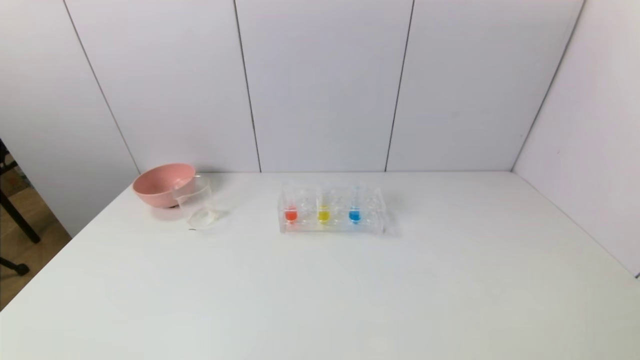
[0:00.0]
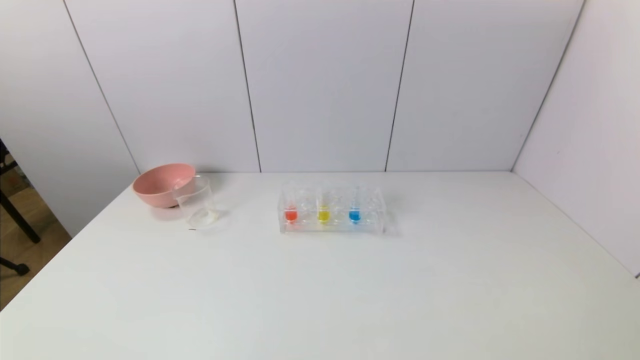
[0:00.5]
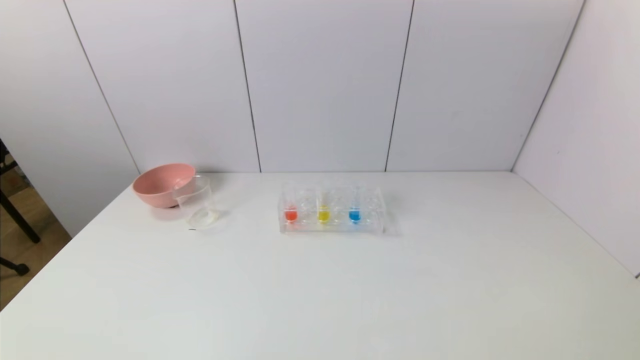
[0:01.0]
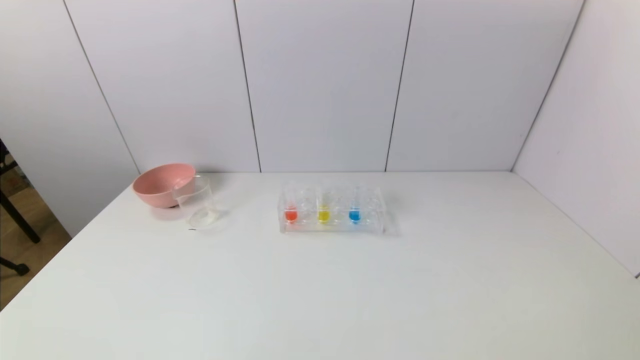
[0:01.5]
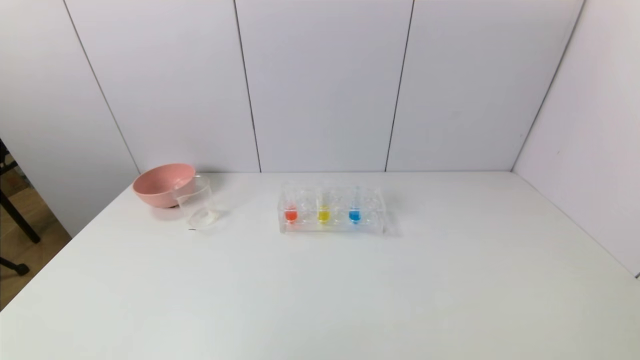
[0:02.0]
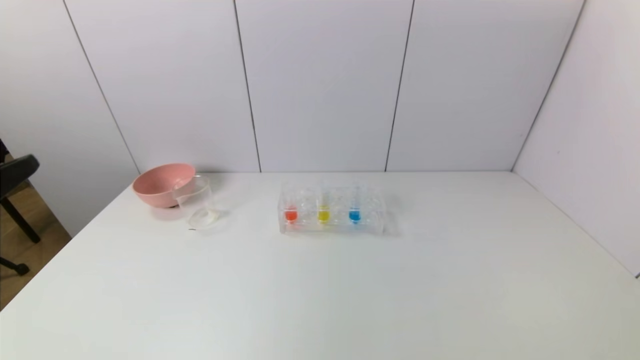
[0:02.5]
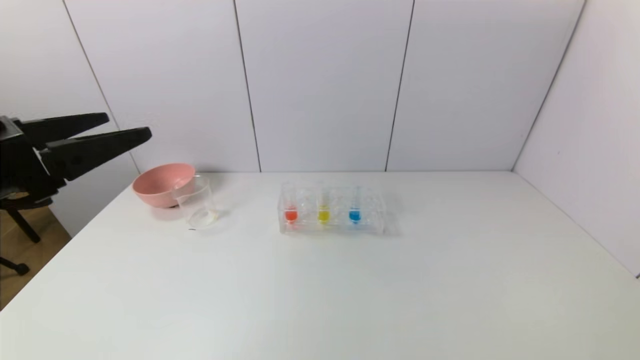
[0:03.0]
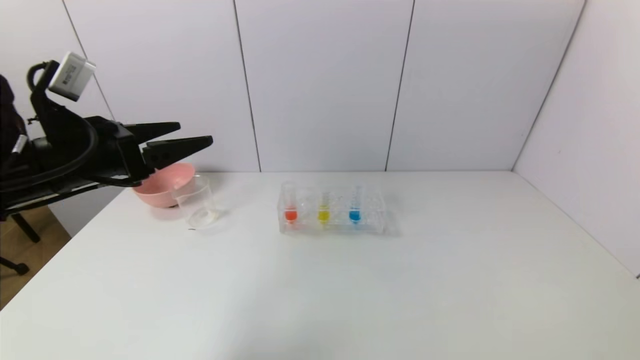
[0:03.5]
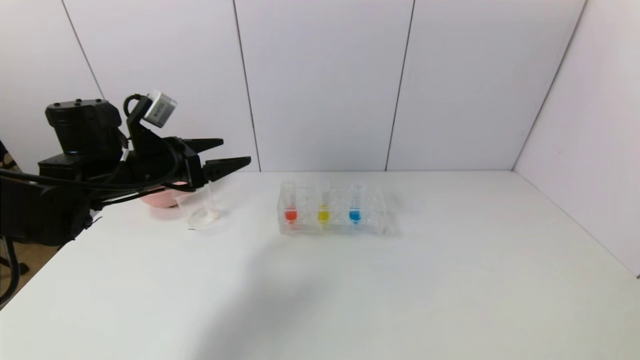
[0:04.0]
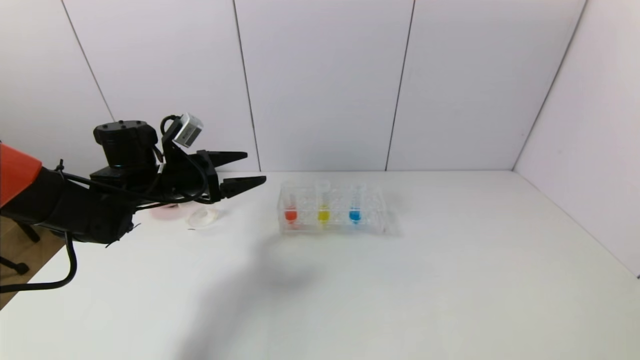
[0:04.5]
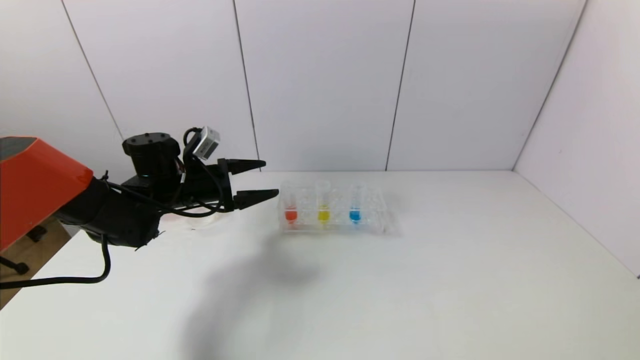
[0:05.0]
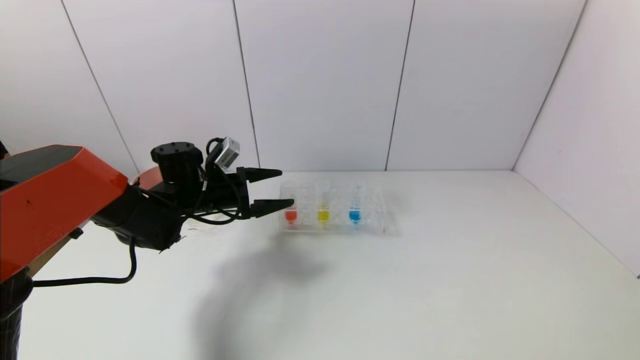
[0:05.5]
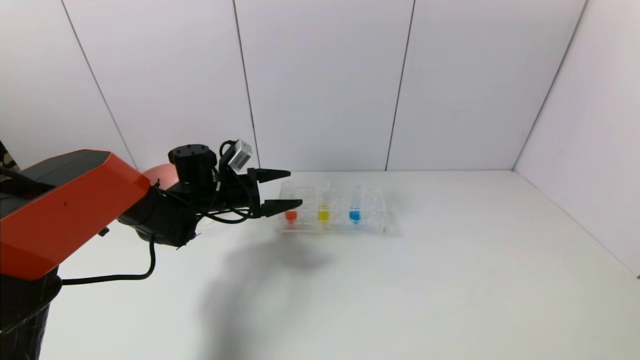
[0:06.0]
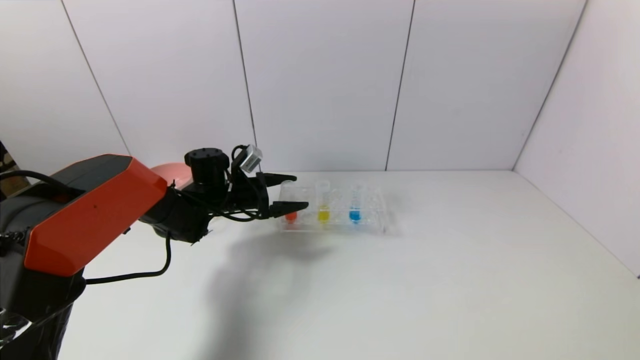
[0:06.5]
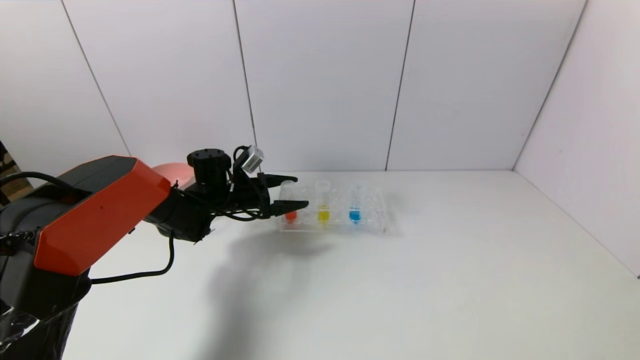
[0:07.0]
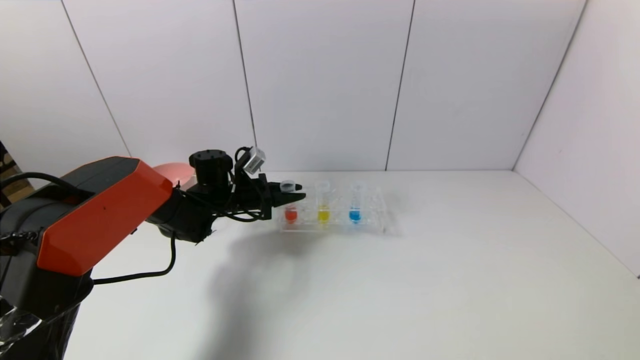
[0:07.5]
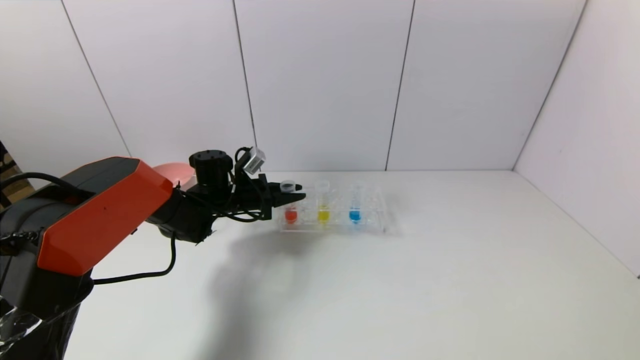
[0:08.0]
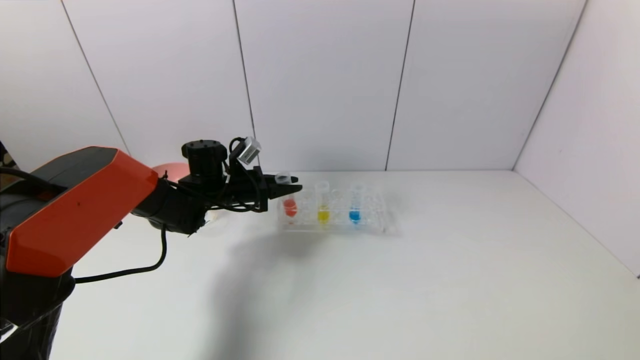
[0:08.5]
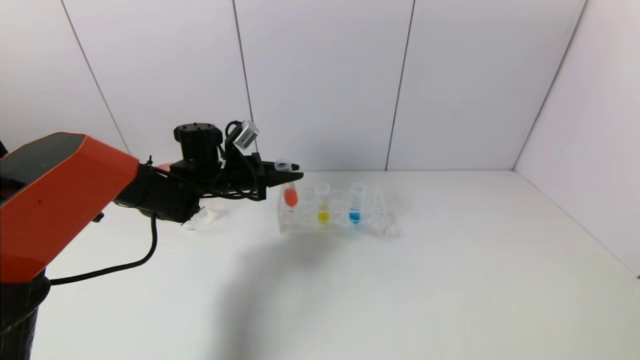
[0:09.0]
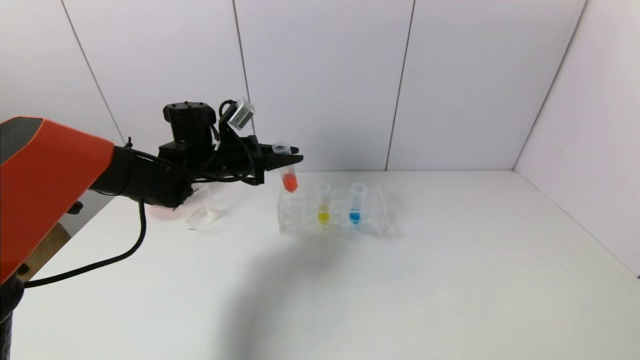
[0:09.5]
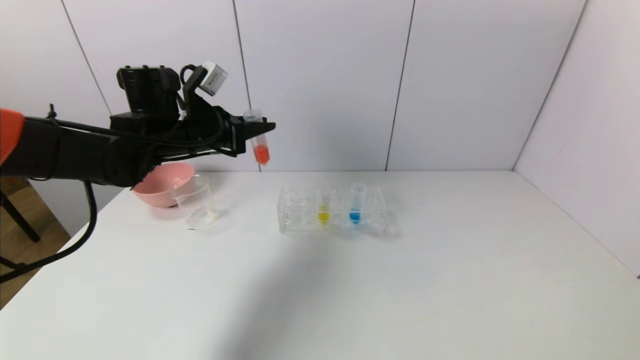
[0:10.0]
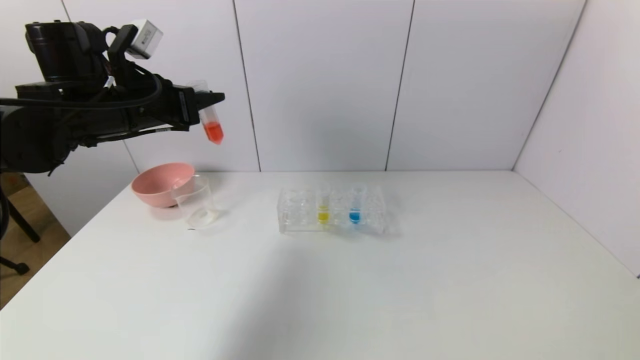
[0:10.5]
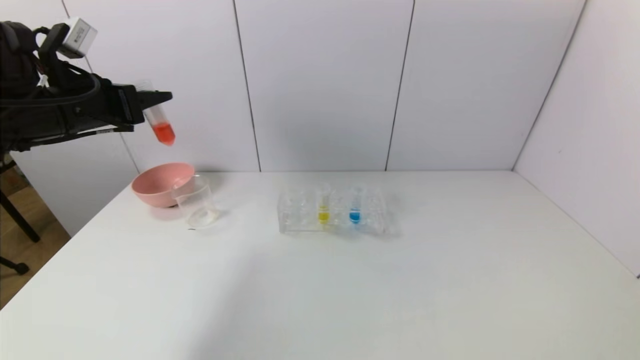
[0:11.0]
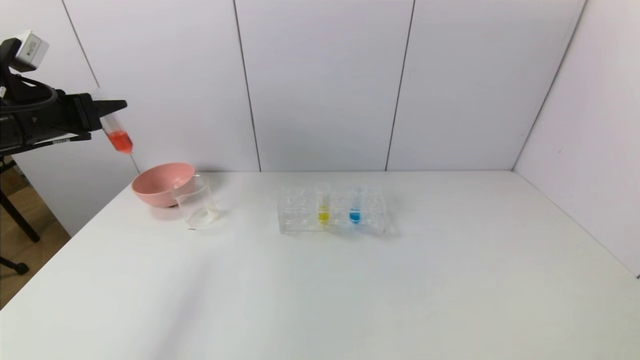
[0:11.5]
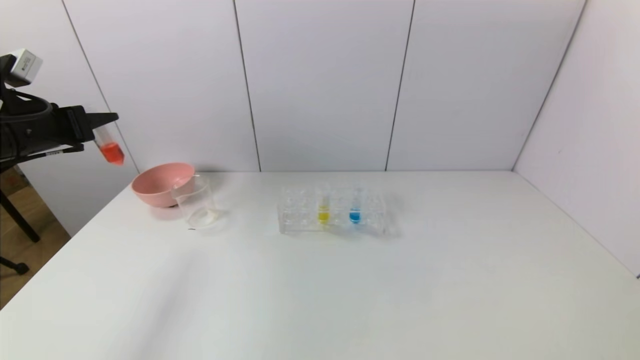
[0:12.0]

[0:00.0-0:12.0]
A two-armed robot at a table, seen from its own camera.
Task of the whole recording: pick up the test tube with yellow pigment and the test tube with red pigment by grippers and pour them into the beaker.
Step, 0:00.0 to 0:07.5: Grasp the red reagent with the left gripper.
0:02.0 to 0:04.0: The left gripper heads forward, covering approximately 35 cm.
0:04.0 to 0:06.0: The left gripper shifts roughly 15 cm downward, forward and to the right.
0:06.0 to 0:08.0: The left gripper closes up.
0:08.0 to 0:10.0: The left gripper shifts approximately 15 cm upward.
0:10.0 to 0:12.0: The left gripper heads to the left and backward, covering some 20 cm.

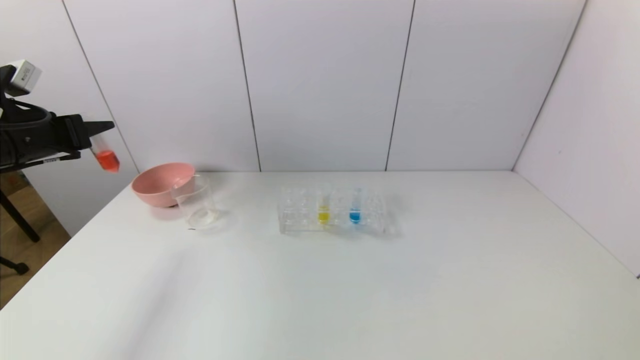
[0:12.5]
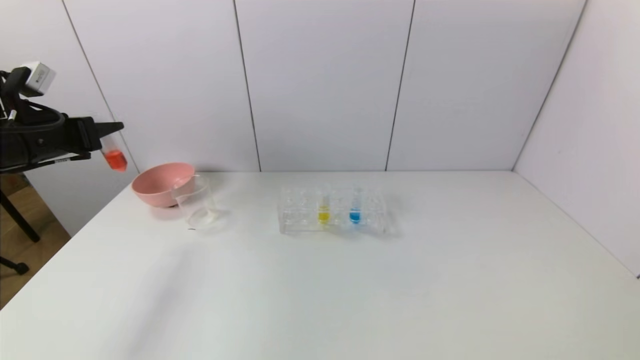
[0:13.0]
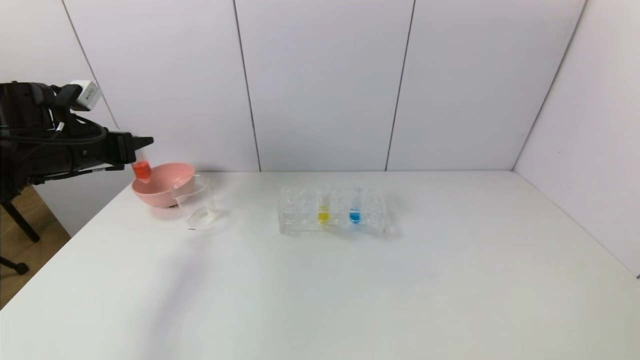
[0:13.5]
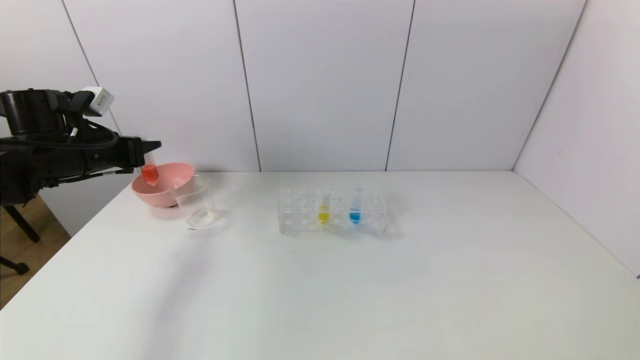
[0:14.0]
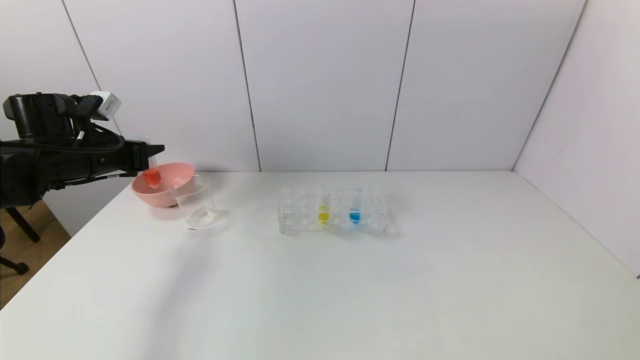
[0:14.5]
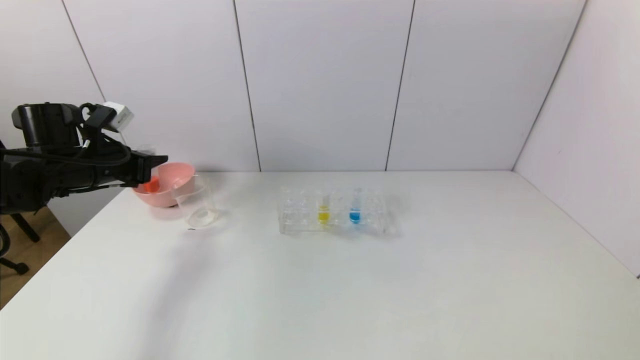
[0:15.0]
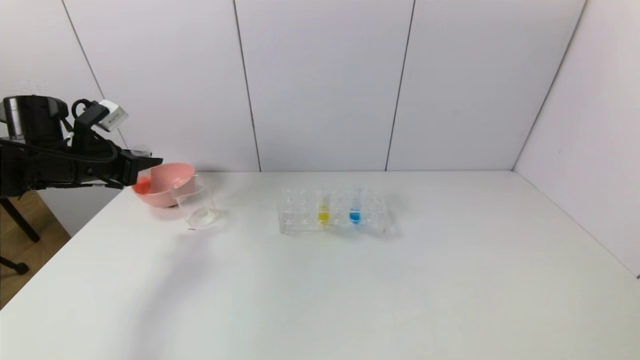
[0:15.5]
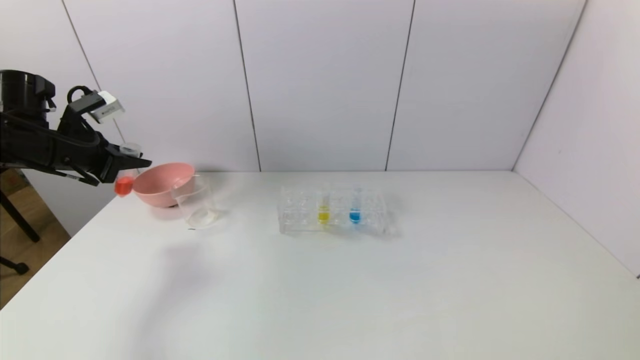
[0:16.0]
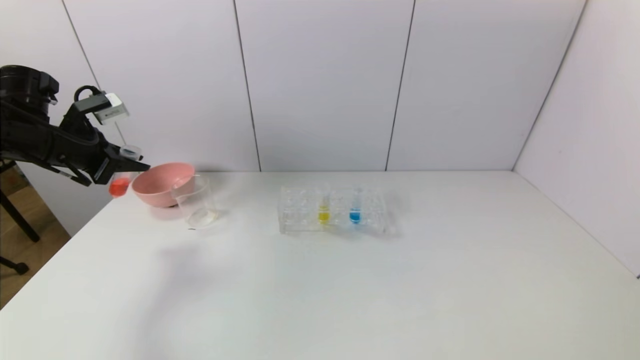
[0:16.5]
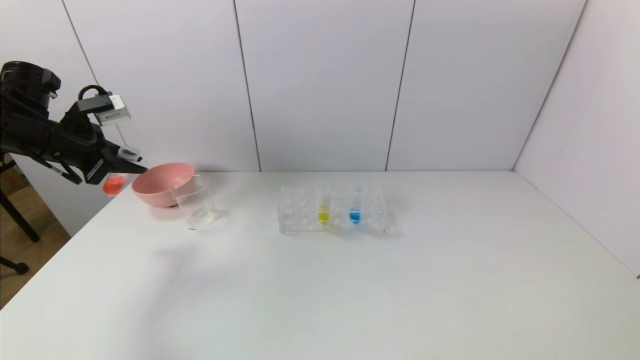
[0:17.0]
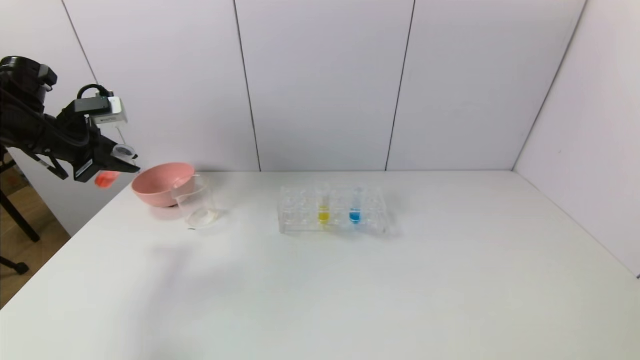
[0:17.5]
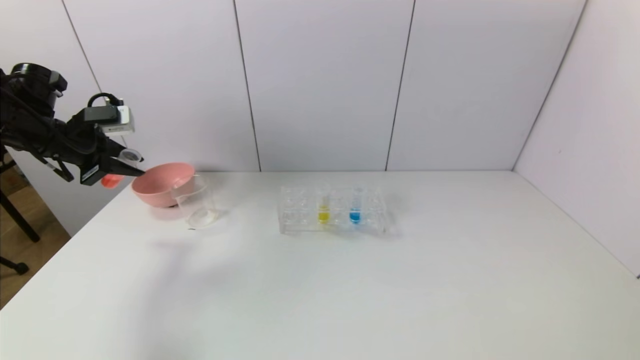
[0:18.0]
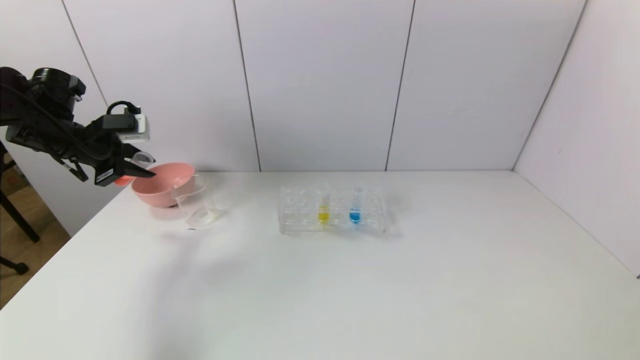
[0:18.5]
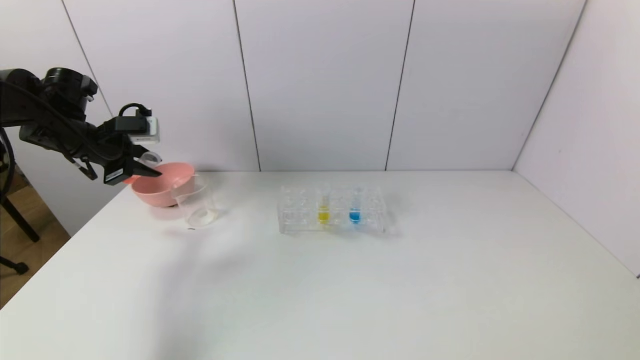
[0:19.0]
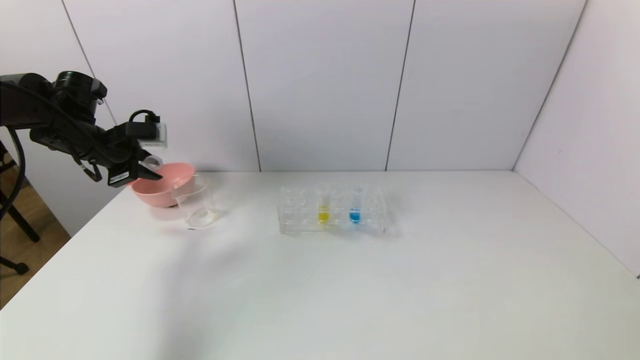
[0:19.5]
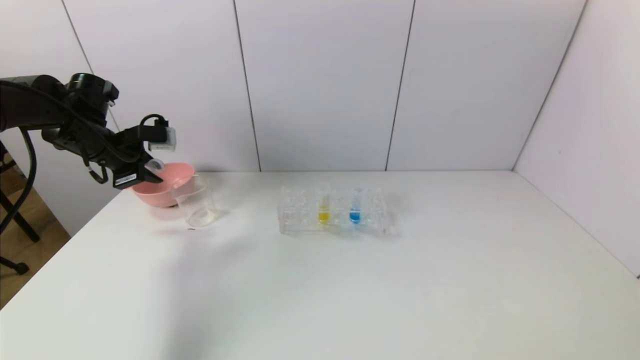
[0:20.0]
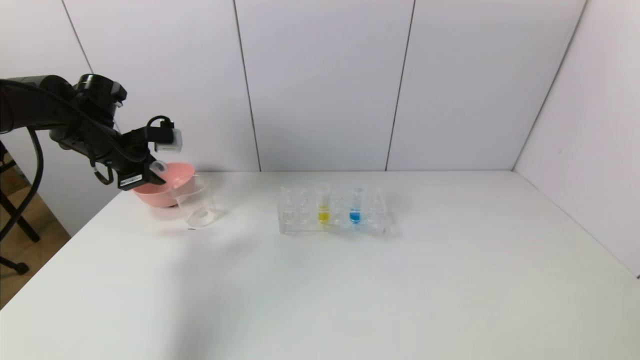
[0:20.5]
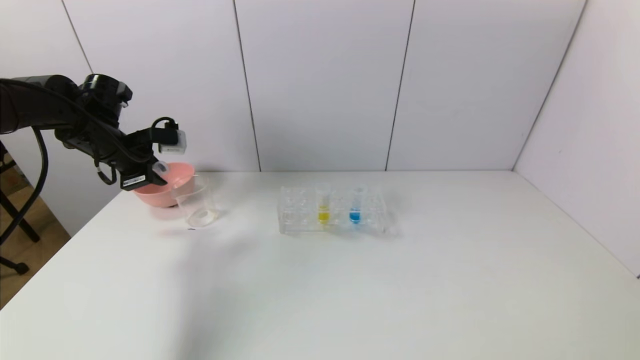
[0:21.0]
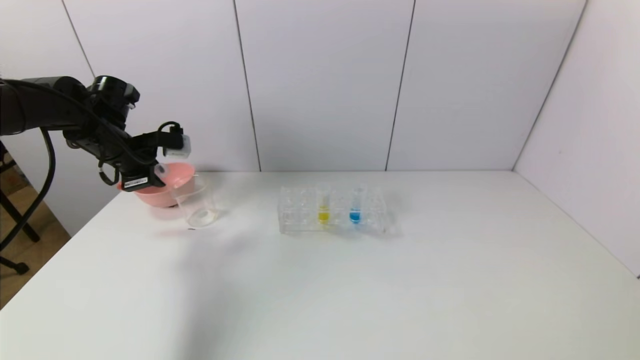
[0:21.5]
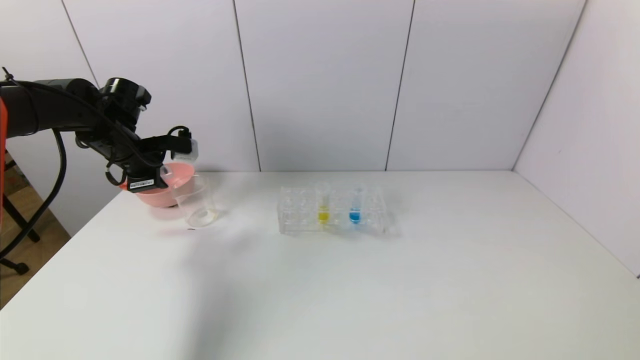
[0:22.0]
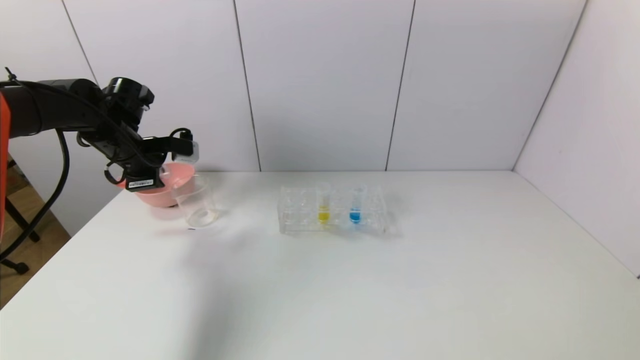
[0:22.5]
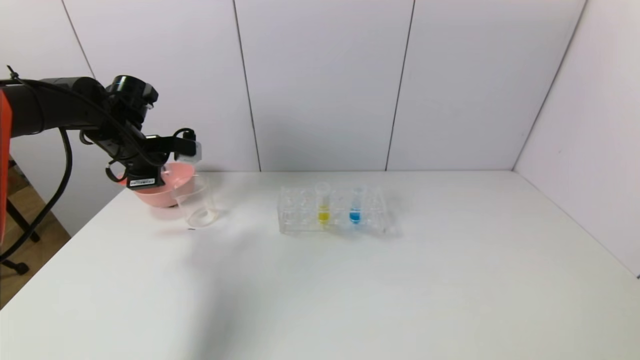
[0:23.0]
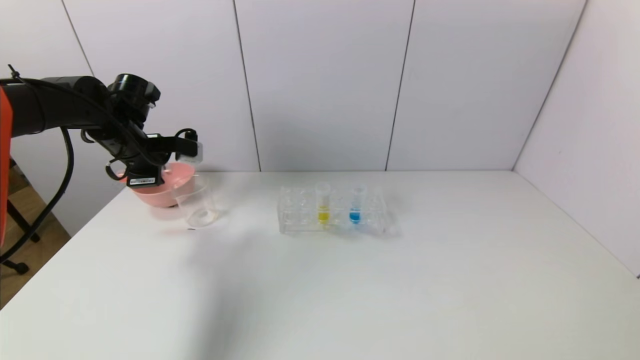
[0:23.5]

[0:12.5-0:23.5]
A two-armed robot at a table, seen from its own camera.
Task of the whole recording: pick up the test tube with yellow pigment and the test tube with red pigment by grippers and pour them into the beaker.
0:12.5 to 0:14.5: The left gripper heads forward, covering some 5 cm.
0:18.0 to 0:20.0: The left gripper shifts by some 5 cm.
0:20.0 to 0:23.5: The grippers move only a little.
